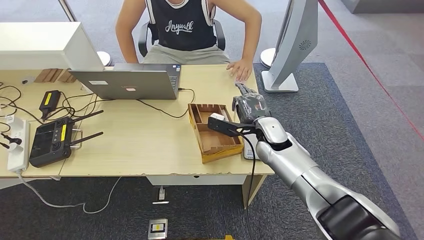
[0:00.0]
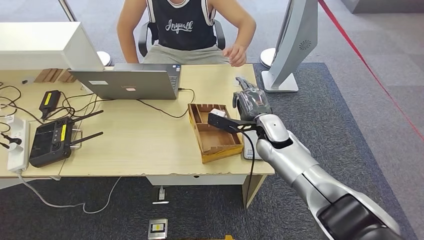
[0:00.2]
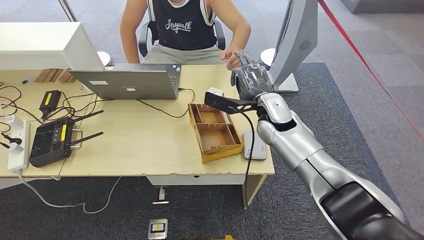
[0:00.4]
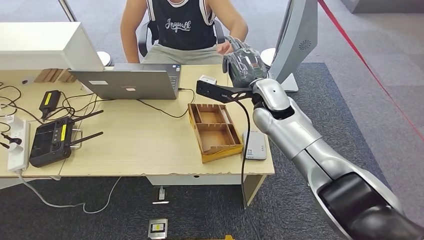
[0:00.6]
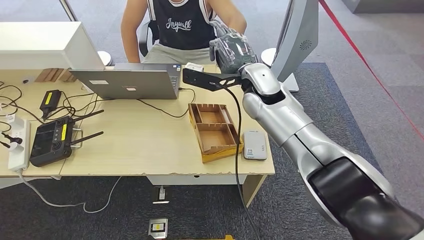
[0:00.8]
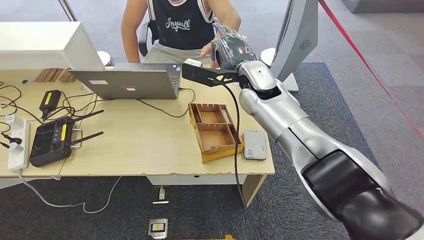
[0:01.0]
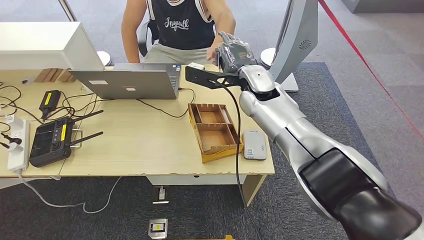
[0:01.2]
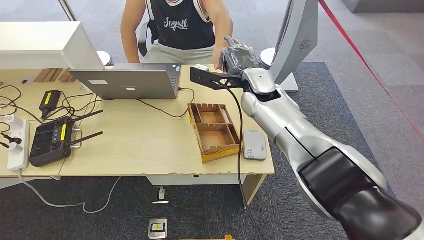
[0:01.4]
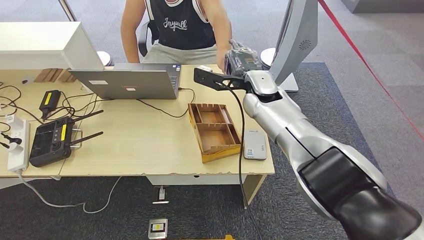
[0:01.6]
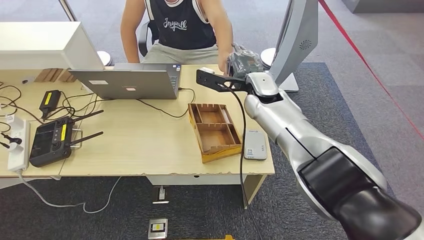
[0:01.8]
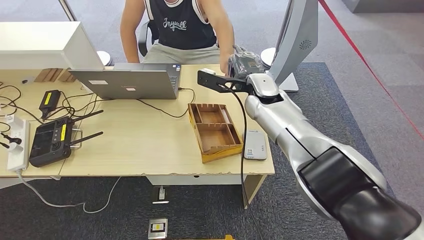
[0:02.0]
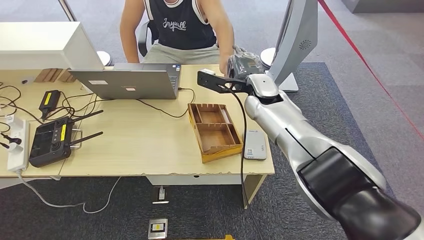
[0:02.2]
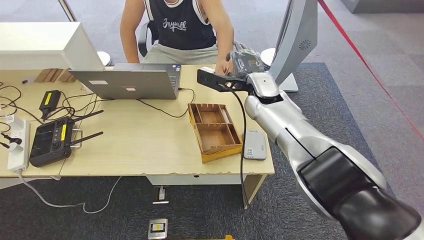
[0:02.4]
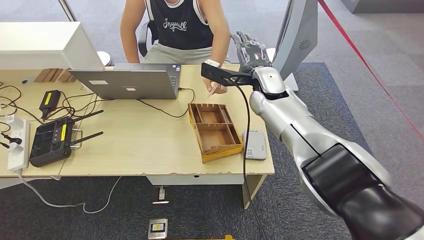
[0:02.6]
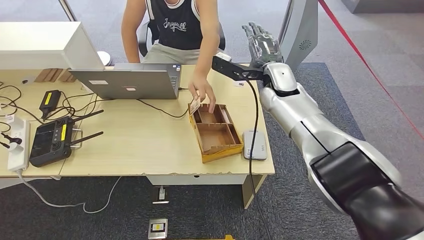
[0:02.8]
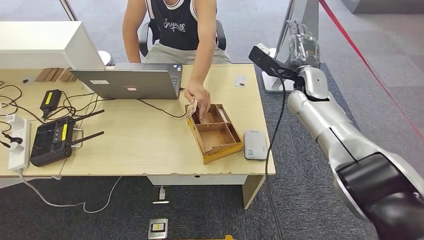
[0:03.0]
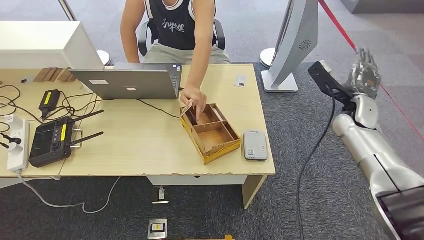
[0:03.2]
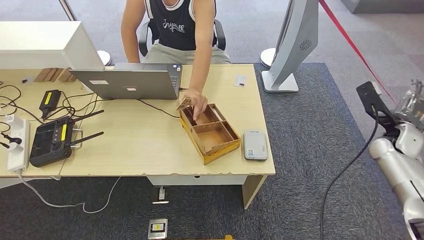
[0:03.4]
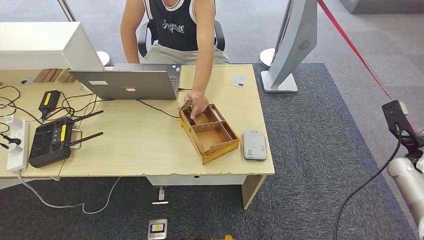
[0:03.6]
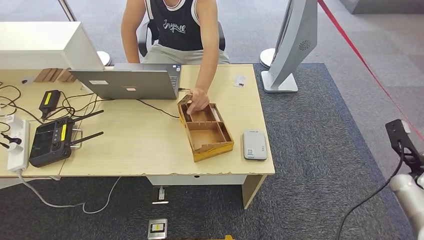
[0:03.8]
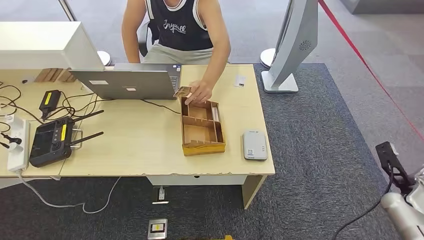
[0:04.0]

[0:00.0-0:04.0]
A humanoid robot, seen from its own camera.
Step, 0:00.0 to 0:03.8: Hand the room key to the person.
0:00.0 to 0:01.4: The right hand travels upward and forward by roughly 15 cm.
0:01.4 to 0:02.6: The hands make only small movements.
0:02.6 to 0:04.0: The right hand is displaced to the right, backward and downward by approximately 50 cm.
